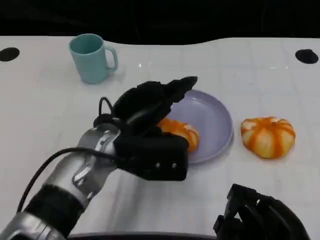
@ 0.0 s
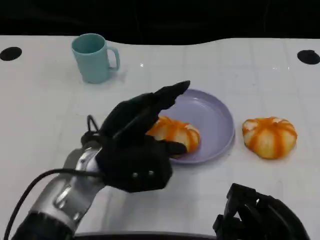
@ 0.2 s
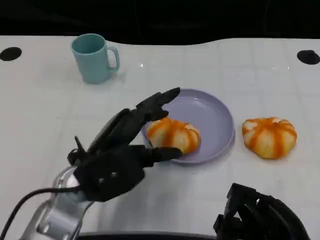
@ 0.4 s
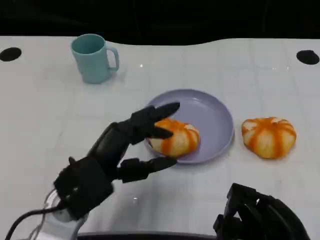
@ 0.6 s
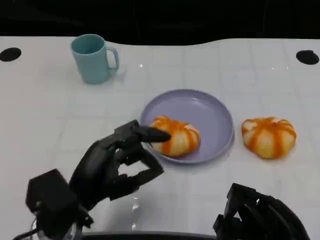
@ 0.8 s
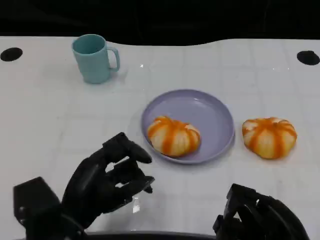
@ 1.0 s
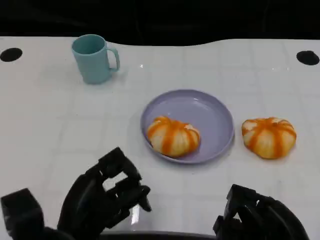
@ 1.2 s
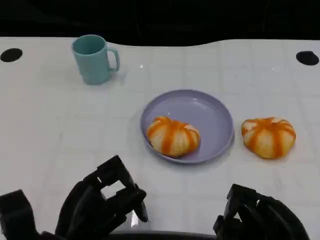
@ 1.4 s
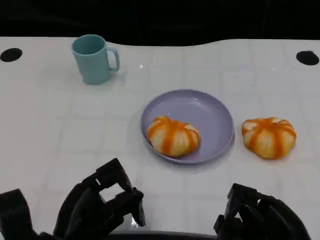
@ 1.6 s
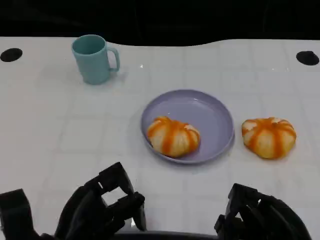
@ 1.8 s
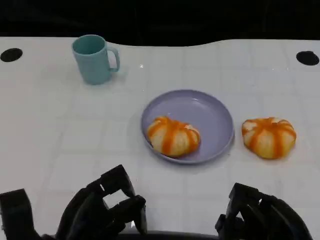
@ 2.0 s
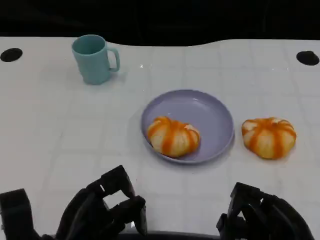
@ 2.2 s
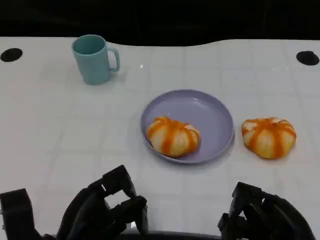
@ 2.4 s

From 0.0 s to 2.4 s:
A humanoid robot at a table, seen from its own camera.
Task of the whole recording: Grasp the bread from the table and place it into the plate.
From 0.0 s to 1.2 s: The left hand moves backward, to the left and downward, approximately 15 cm.
From 1.2 s to 2.4 s: There are only small adjustments of the hands.

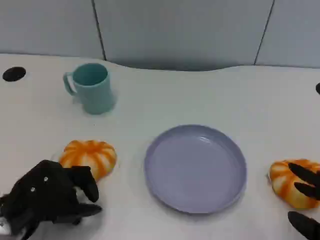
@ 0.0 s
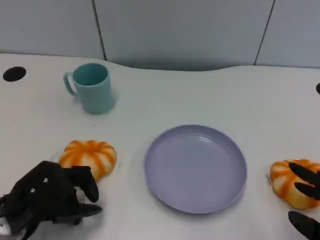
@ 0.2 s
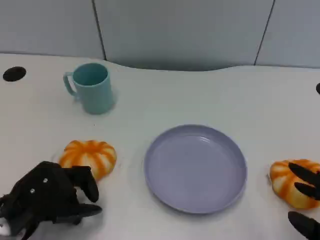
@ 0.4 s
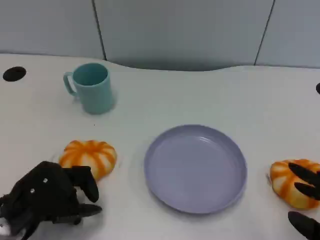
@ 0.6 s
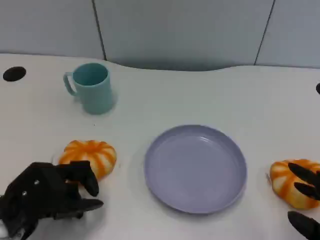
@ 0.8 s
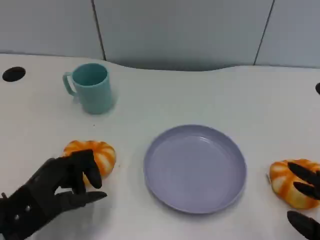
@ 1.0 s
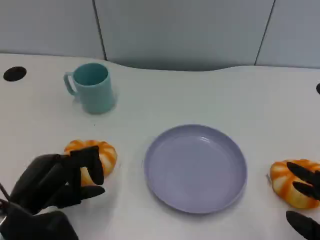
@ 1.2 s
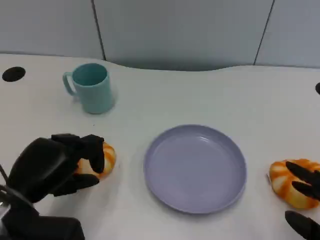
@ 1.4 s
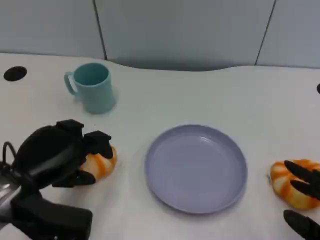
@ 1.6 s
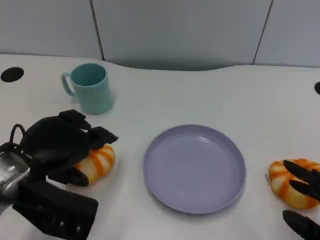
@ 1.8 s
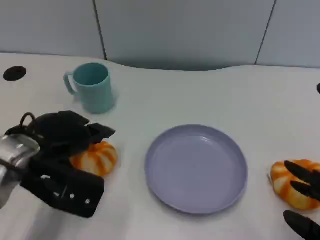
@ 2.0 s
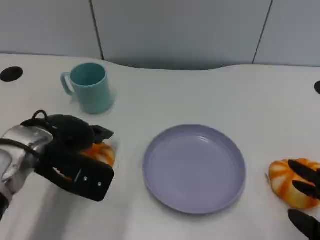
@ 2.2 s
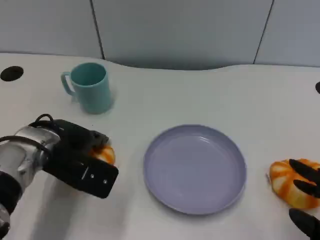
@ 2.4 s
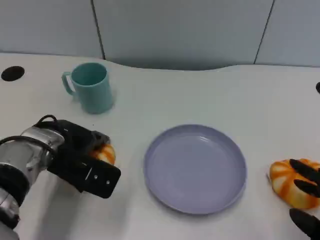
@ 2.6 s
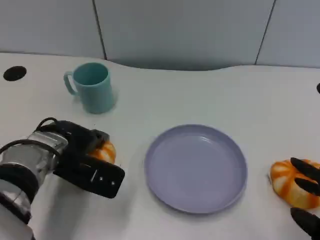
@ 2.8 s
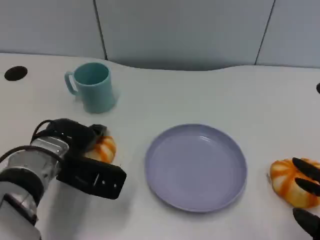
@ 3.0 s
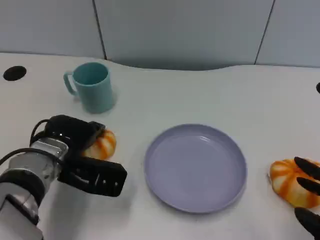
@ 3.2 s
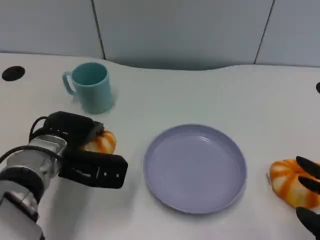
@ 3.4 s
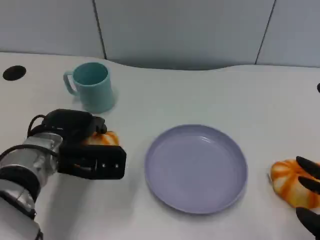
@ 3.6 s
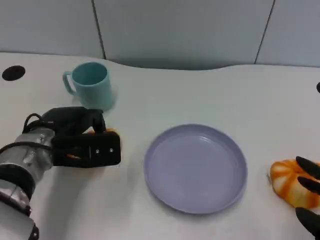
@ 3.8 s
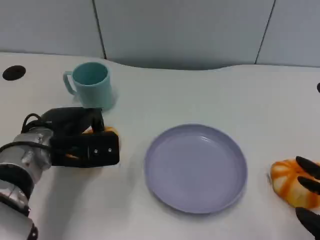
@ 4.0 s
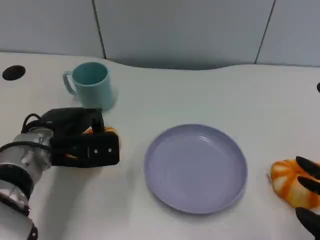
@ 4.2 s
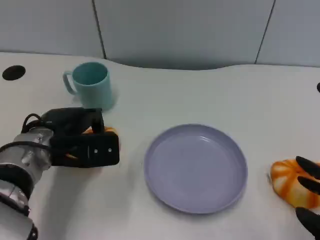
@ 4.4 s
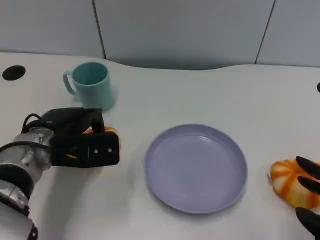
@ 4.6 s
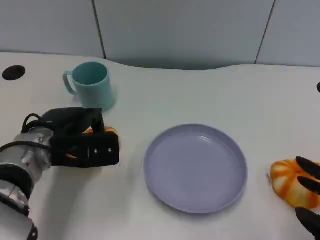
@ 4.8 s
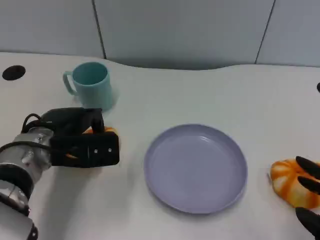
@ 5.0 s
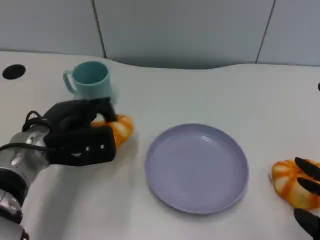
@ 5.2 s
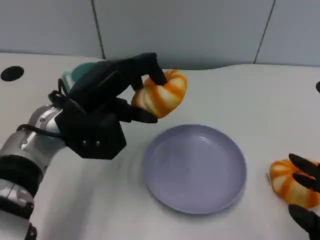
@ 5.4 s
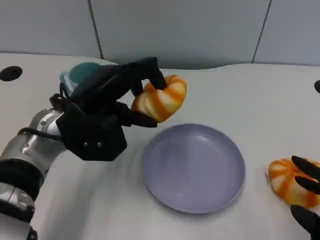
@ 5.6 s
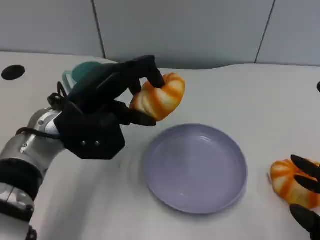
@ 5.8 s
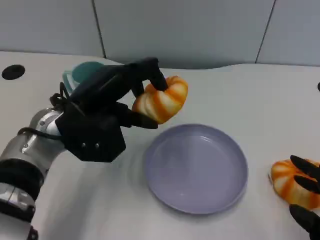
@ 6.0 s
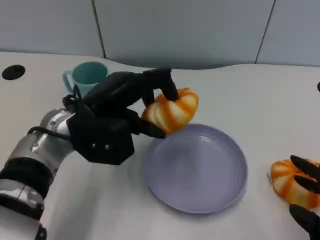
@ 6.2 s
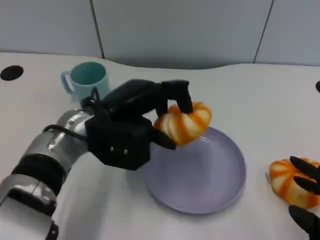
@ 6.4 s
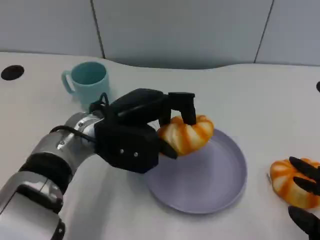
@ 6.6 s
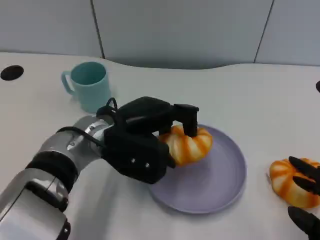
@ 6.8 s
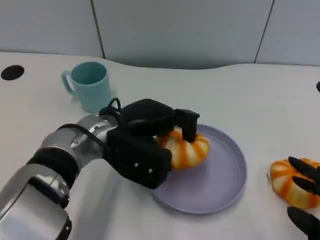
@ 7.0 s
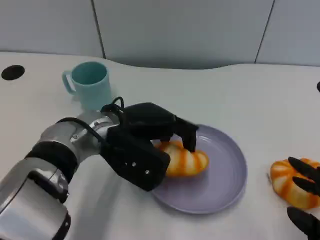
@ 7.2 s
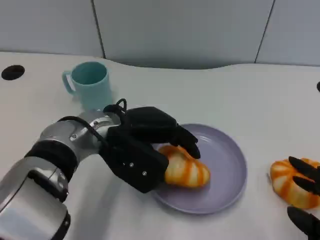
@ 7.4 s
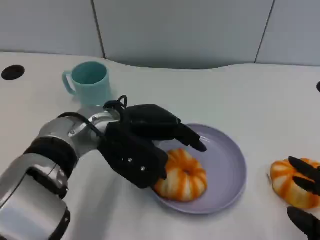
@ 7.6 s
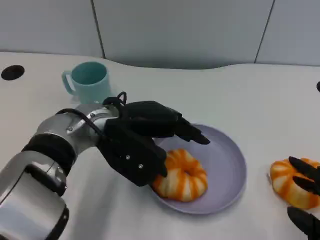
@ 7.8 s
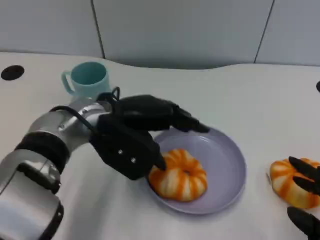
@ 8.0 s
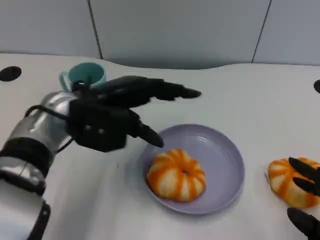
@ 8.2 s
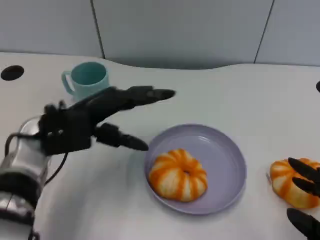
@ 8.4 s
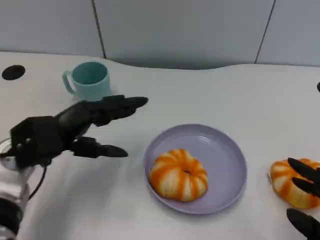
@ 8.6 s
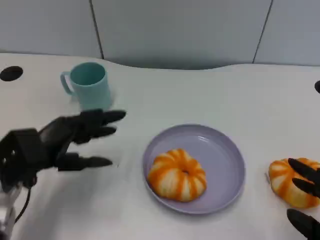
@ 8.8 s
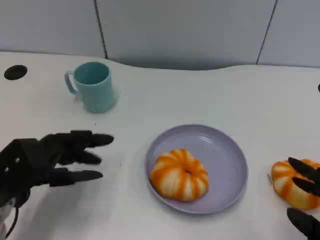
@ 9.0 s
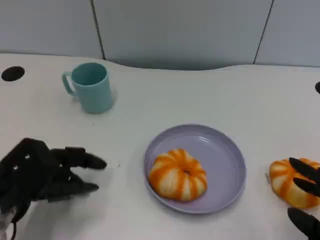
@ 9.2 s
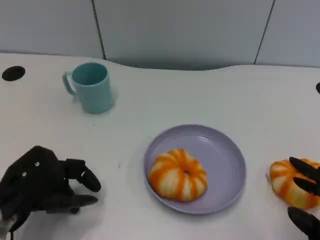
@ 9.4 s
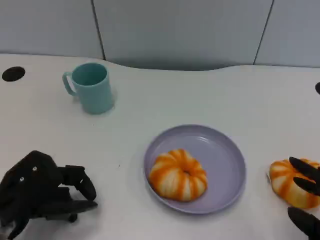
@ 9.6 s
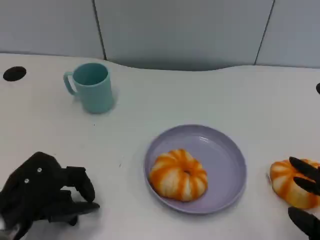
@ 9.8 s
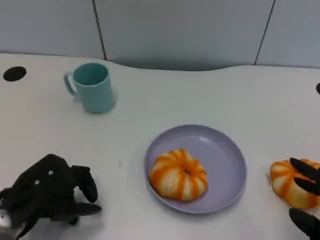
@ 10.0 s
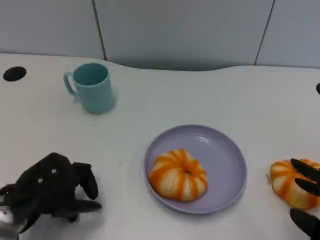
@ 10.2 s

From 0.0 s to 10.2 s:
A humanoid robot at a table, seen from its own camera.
Task of the whole recording: Grasp the bread from the table and place it into the plate.
From 1.4 s to 3.0 s: The left hand is displaced forward and to the right by about 10 cm.
From 4.4 s to 5.8 s: The left hand shifts roughly 5 cm upward.
From 5.8 s to 7.2 s: The left hand goes roughly 5 cm to the right.
From 7.2 s to 8.8 s: The left hand moves to the left, approximately 15 cm.

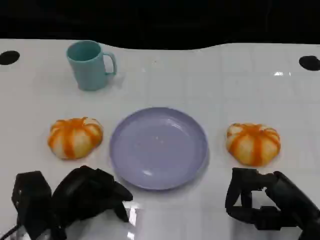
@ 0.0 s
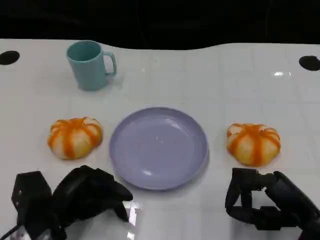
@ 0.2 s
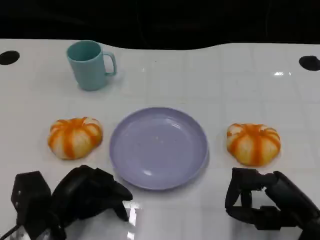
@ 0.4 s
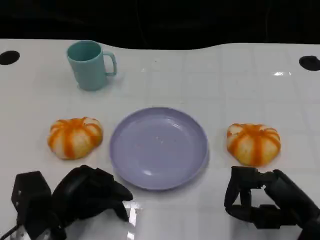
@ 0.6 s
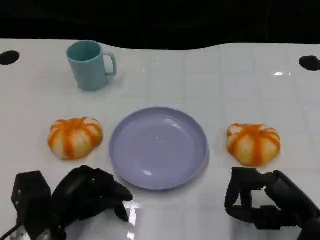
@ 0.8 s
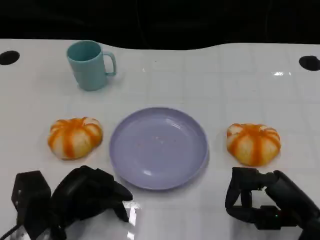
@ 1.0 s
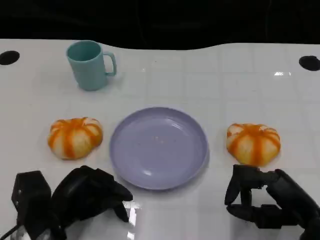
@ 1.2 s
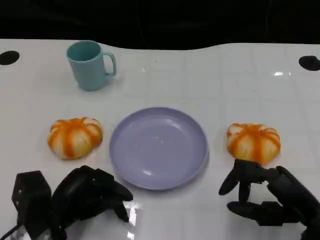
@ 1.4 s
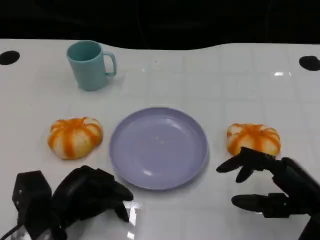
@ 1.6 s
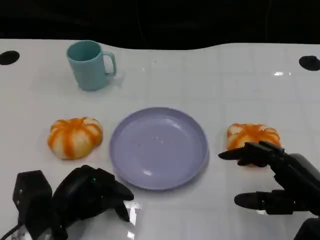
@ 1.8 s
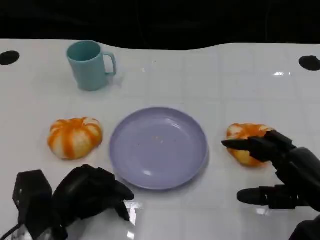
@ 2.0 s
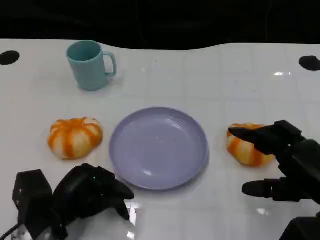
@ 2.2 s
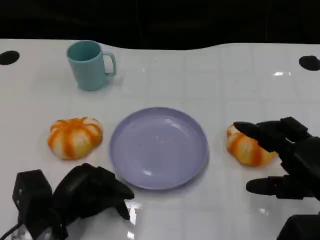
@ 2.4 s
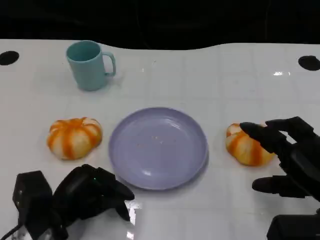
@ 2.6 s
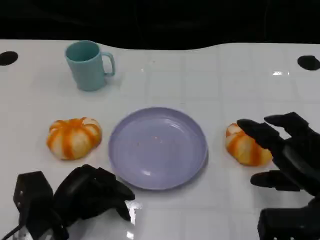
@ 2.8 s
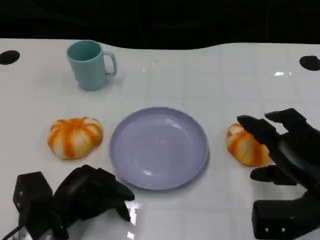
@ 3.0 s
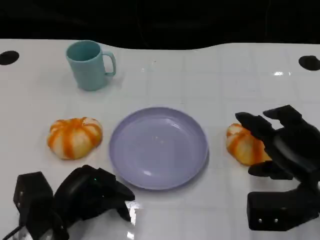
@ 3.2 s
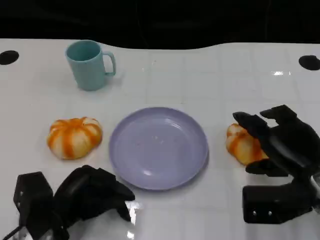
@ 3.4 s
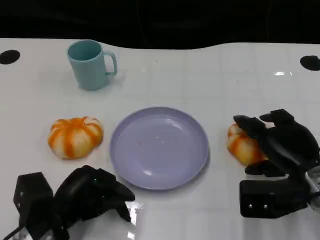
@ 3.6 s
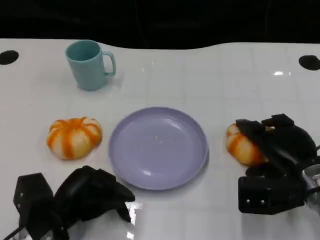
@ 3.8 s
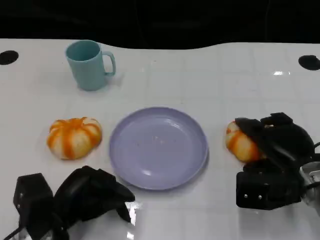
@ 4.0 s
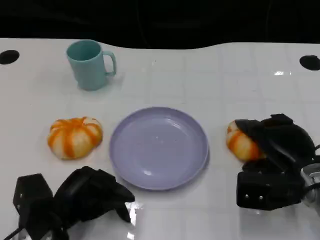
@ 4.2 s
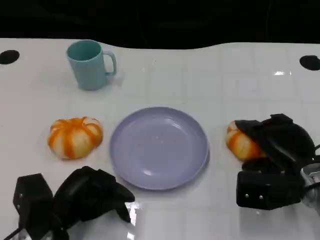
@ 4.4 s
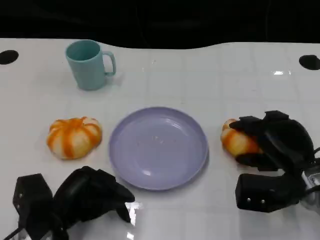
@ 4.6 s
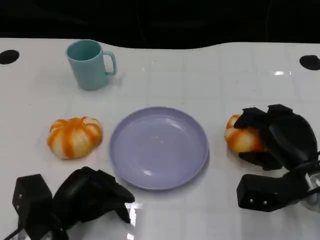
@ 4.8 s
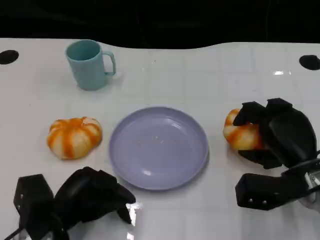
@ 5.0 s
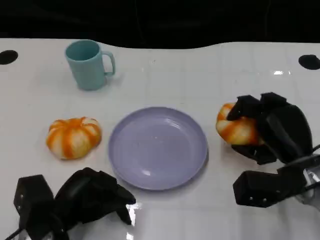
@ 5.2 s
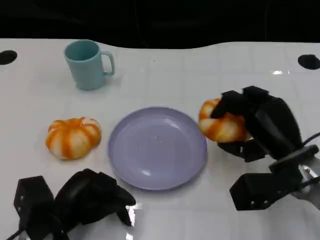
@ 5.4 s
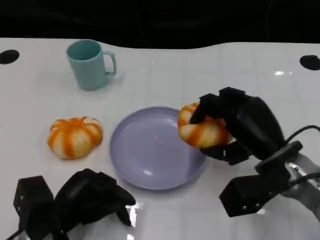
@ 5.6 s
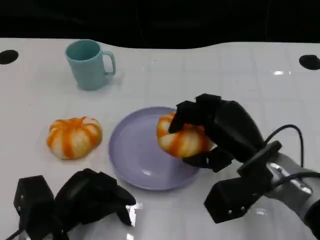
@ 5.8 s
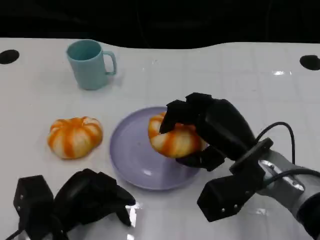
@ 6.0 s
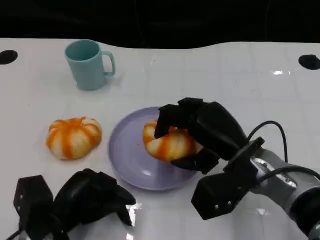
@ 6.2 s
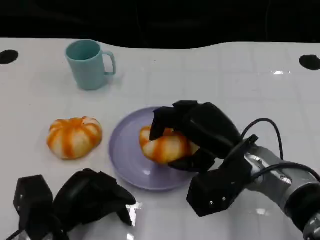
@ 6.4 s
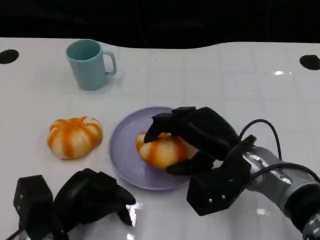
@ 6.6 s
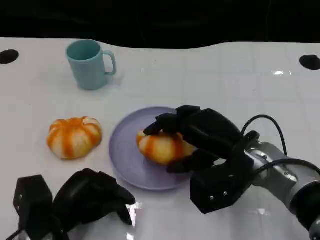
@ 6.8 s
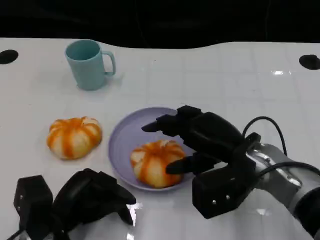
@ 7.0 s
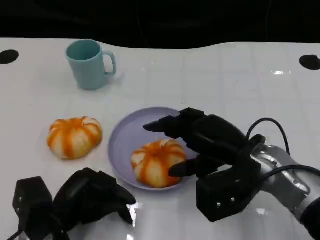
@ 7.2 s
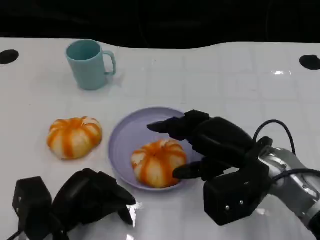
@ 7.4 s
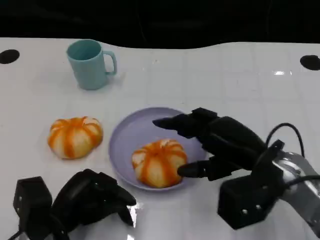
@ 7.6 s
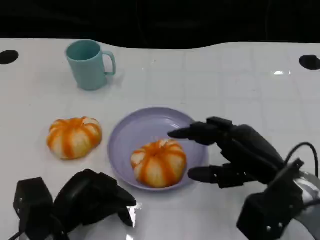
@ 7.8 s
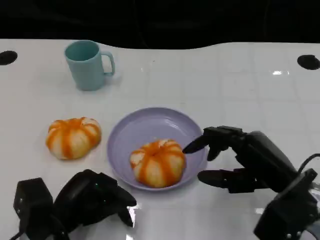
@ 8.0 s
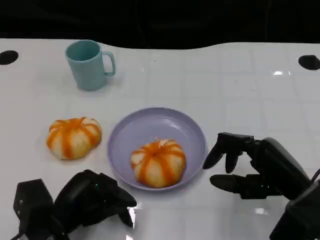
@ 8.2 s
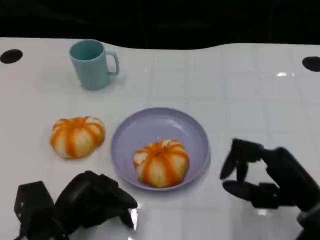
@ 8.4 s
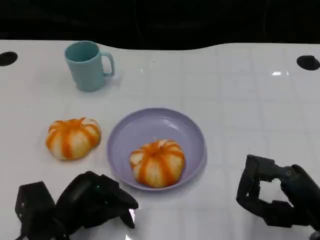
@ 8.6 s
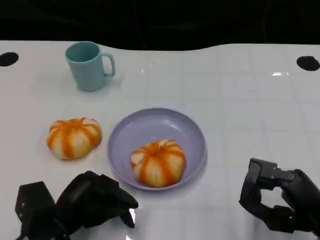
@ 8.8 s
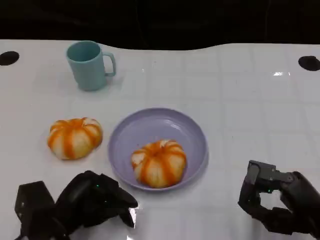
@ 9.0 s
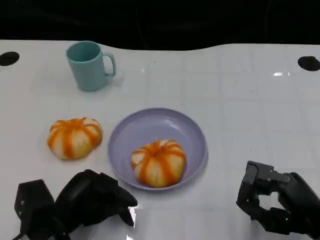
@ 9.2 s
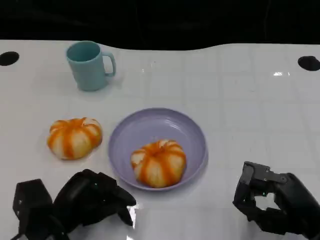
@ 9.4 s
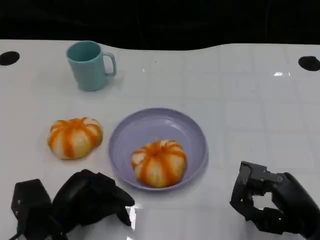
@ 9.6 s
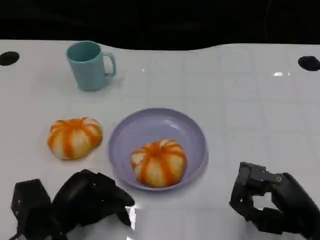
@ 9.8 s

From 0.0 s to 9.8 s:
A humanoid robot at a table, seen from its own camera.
Task of the whole recording: Grasp the bread from the table and place it into the plate.
From 0.0 s to 1.4 s: The hands make only small movements.
From 2.8 s to 4.2 s: The right hand heads forward, covering approximately 5 cm.
From 4.2 s to 5.6 s: The right hand shifts roughly 5 cm to the left.
From 7.0 s to 8.4 s: The right hand heads to the right and backward, covering about 10 cm.
From 8.4 s to 9.8 s: The hands move only a little.
